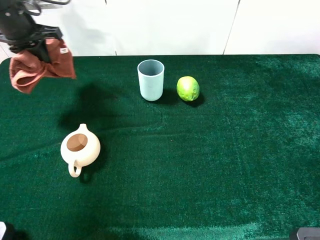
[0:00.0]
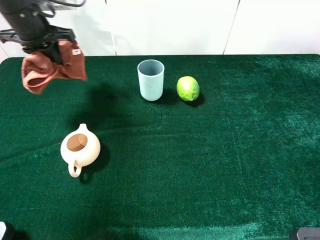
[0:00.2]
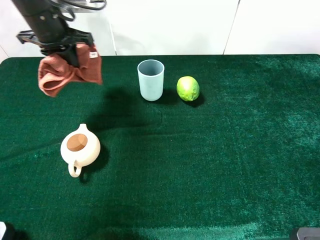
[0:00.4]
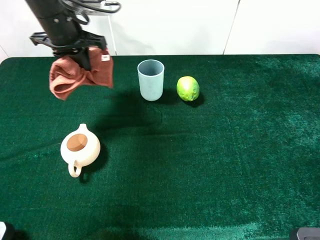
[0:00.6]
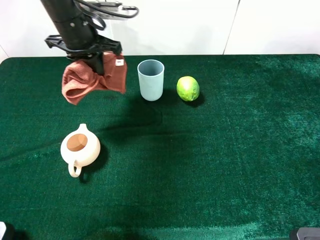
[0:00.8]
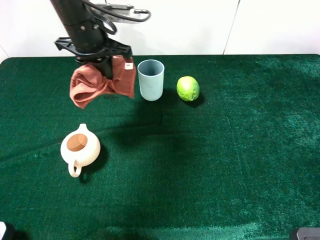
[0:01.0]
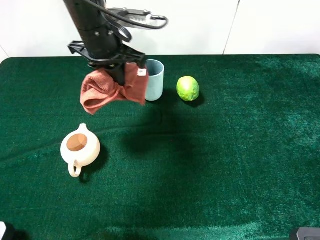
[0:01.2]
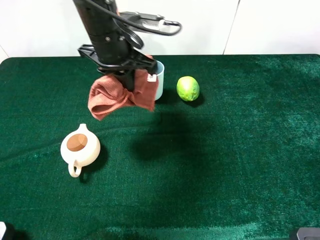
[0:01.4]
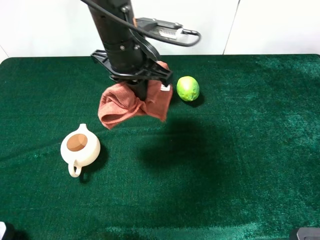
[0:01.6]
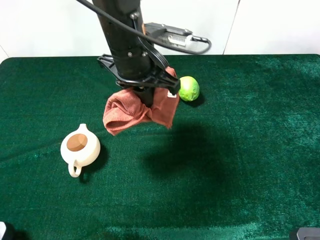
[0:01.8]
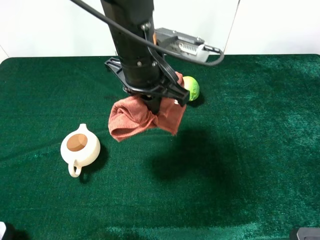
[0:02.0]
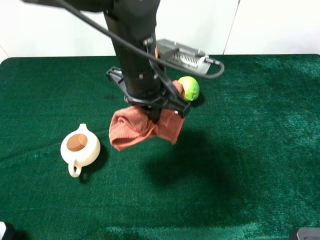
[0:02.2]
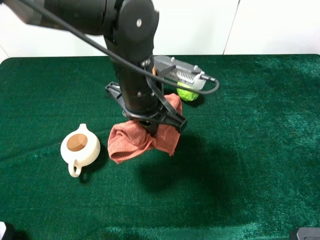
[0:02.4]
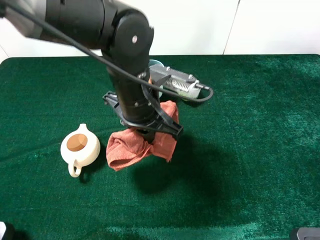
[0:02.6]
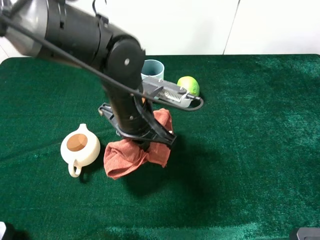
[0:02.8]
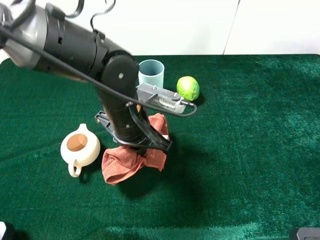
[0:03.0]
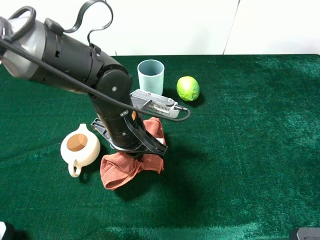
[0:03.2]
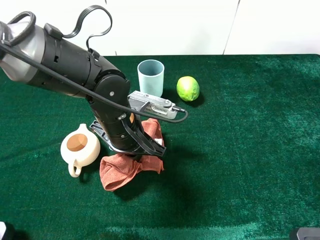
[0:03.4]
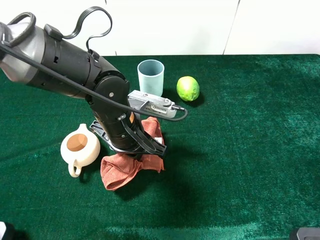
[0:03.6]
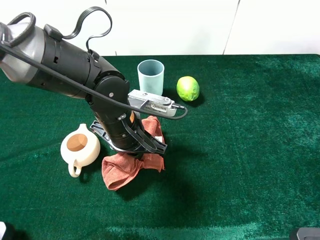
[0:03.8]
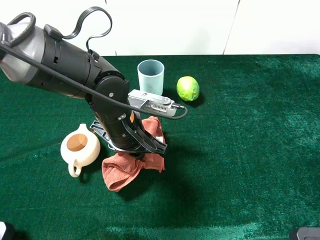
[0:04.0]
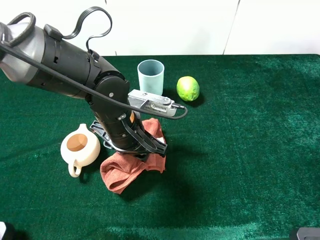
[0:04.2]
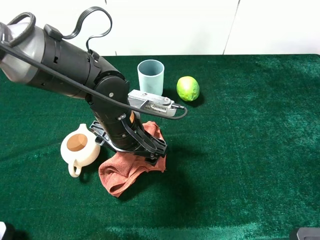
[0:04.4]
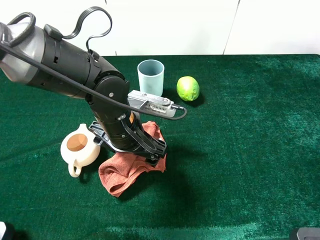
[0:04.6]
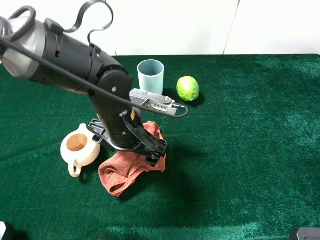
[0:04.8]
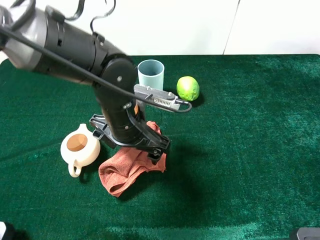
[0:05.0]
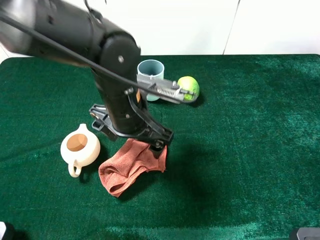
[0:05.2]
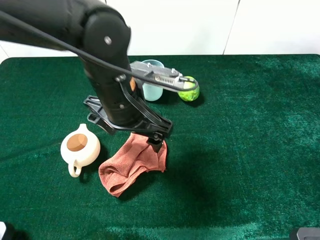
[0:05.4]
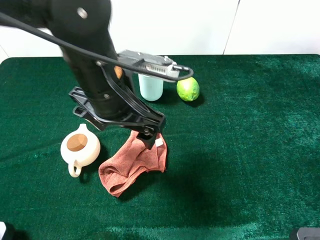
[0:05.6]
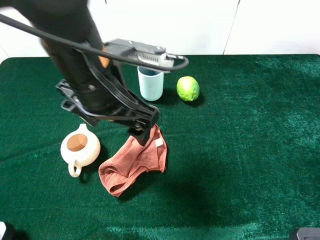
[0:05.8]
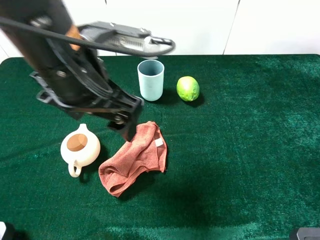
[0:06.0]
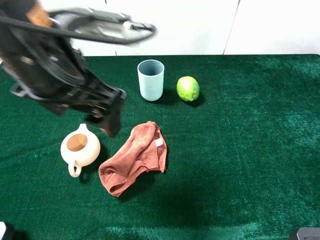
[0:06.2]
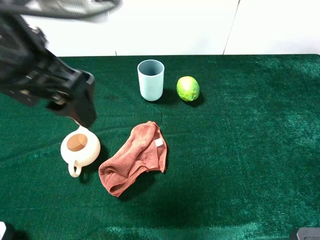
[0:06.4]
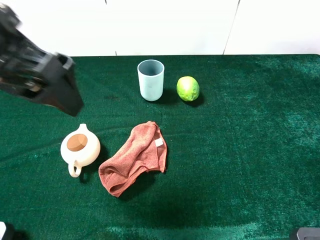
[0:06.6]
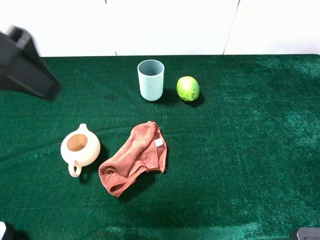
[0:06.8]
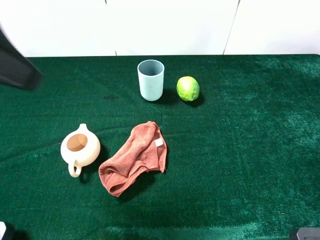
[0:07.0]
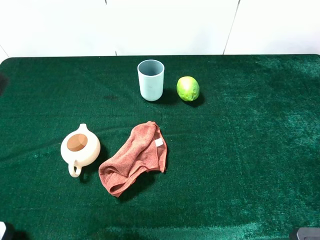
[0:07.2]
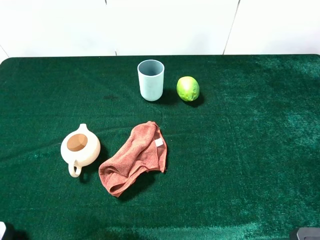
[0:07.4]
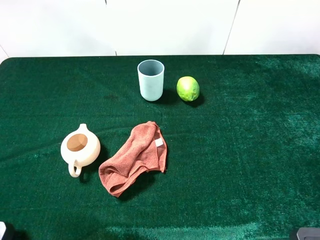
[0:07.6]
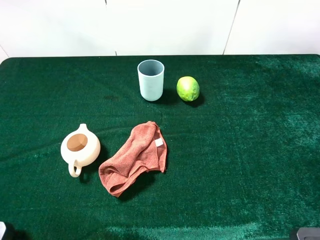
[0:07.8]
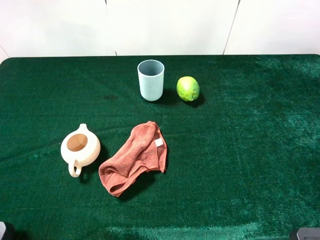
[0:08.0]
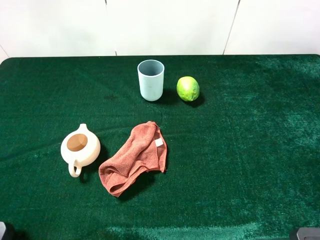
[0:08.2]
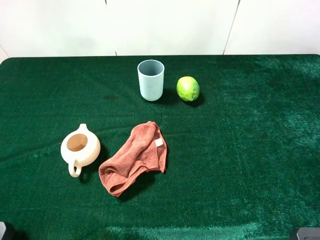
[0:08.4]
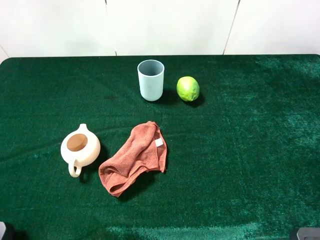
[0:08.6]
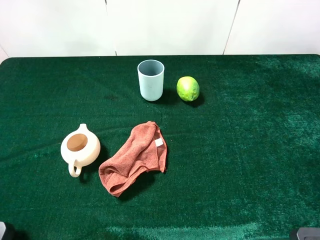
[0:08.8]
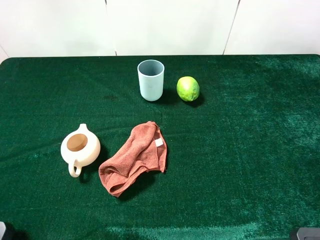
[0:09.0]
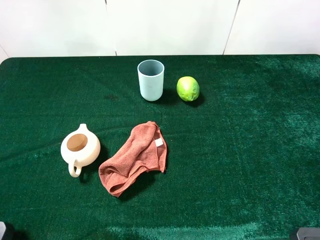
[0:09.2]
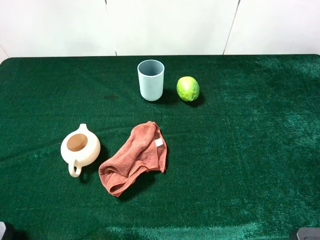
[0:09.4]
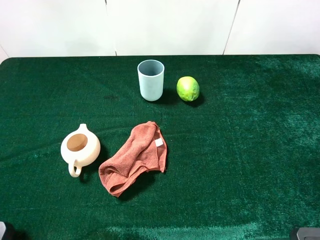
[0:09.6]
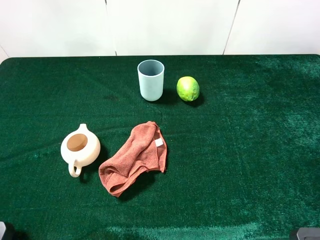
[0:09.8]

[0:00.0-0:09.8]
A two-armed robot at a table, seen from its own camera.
Task of the whole recording: the gripper move the object.
Step, 0:00.0 to 0:05.4: Place the brown towel on the table with the left gripper.
0:00.0 to 0:01.4: The left gripper goes about 20 cm to the right.
0:01.4 to 0:02.8: The left gripper goes roughly 10 cm backward and downward.
0:02.8 to 0:04.2: The left gripper opens up.
0:04.2 to 0:05.6: The left gripper moves upward, approximately 10 cm, and opens its fingers.
0:05.6 to 0:07.0: The left gripper is displaced upward, to the left and backward by some 20 cm.
0:07.0 to 0:08.4: The left gripper travels backward, to the left and downward by some 20 cm.

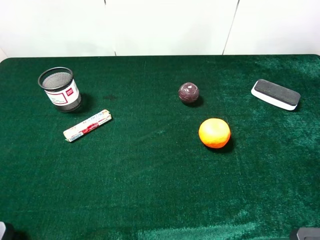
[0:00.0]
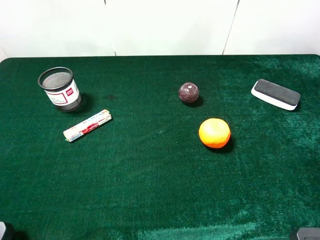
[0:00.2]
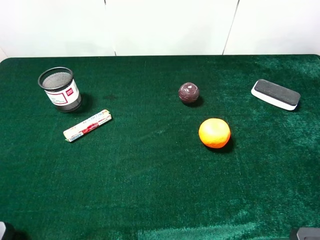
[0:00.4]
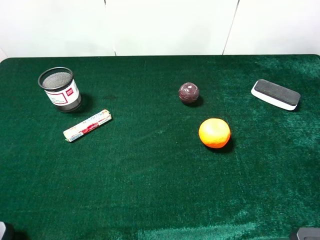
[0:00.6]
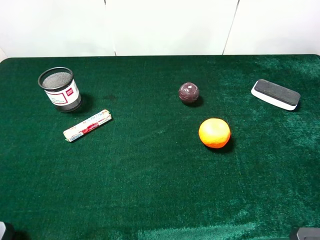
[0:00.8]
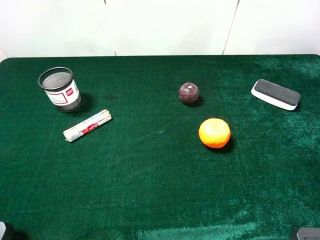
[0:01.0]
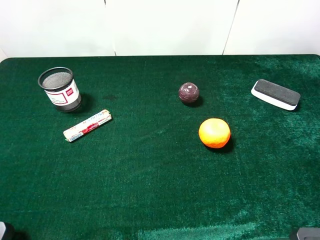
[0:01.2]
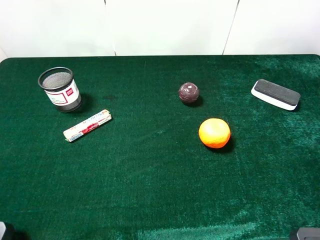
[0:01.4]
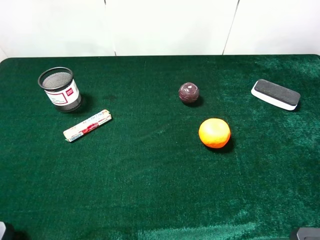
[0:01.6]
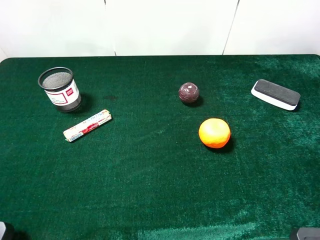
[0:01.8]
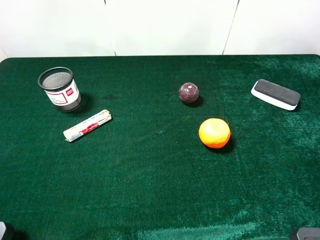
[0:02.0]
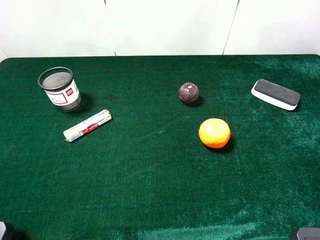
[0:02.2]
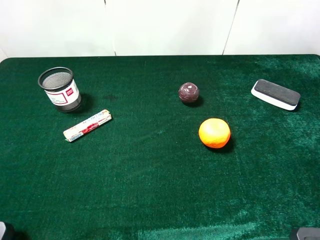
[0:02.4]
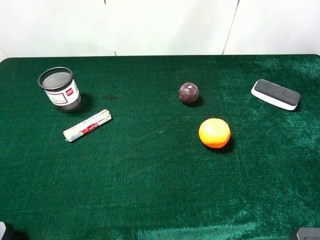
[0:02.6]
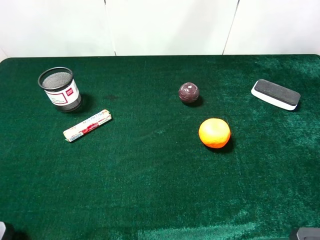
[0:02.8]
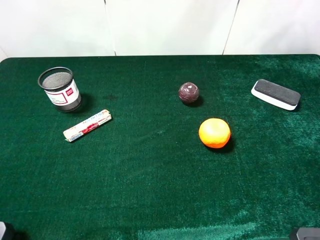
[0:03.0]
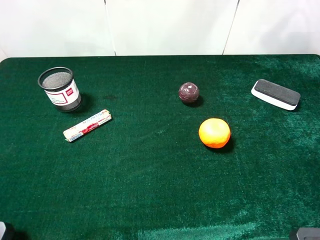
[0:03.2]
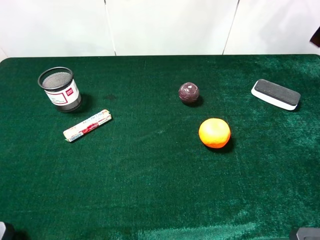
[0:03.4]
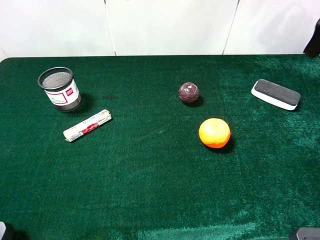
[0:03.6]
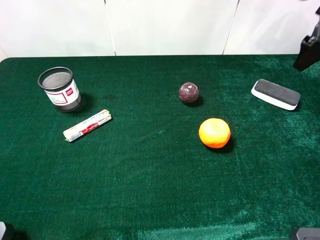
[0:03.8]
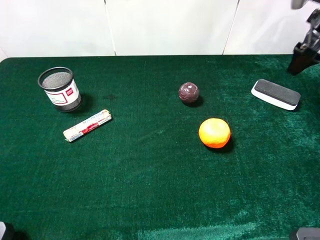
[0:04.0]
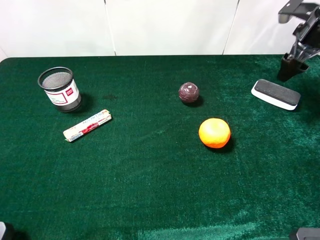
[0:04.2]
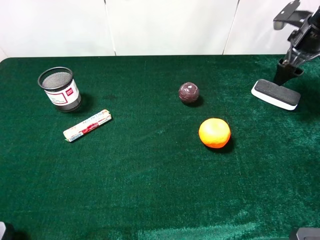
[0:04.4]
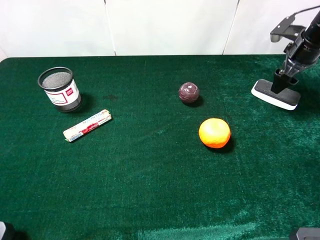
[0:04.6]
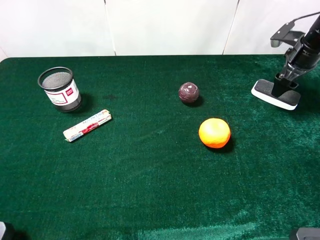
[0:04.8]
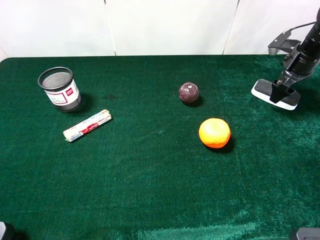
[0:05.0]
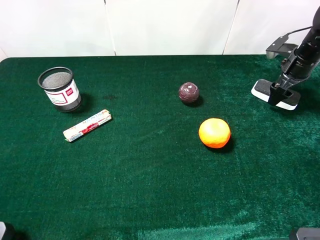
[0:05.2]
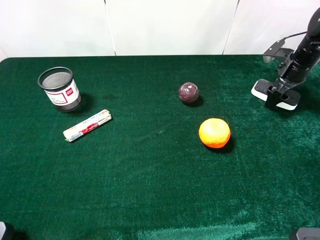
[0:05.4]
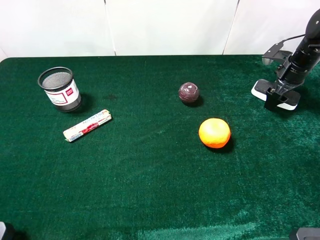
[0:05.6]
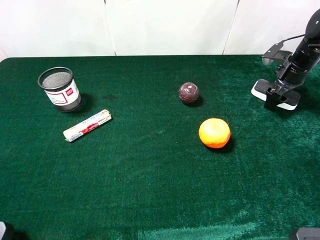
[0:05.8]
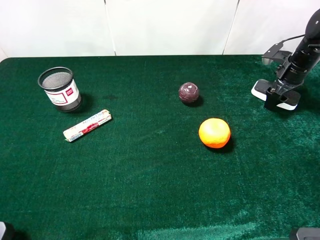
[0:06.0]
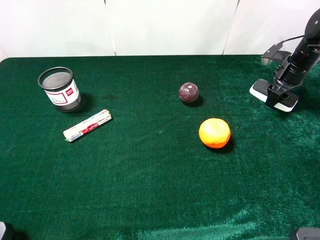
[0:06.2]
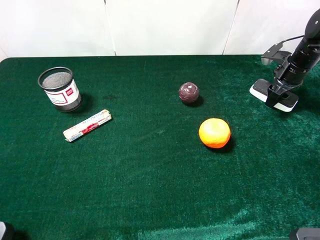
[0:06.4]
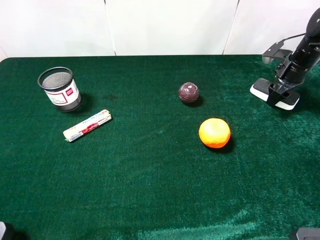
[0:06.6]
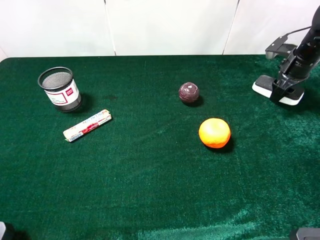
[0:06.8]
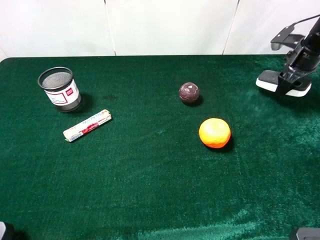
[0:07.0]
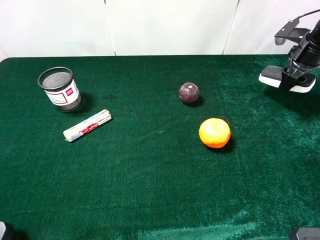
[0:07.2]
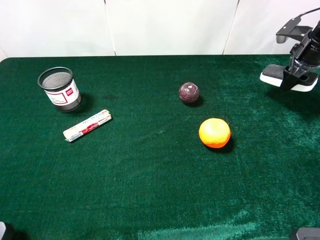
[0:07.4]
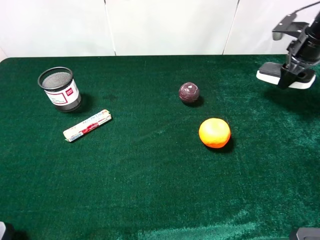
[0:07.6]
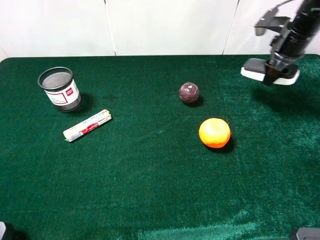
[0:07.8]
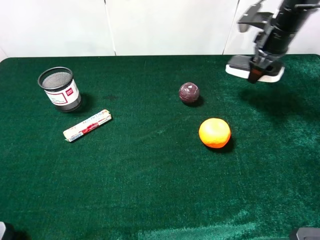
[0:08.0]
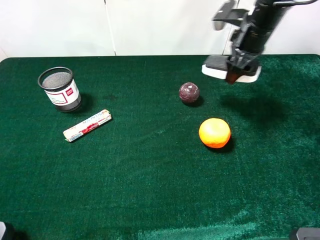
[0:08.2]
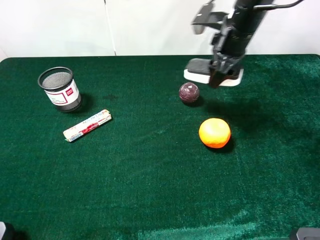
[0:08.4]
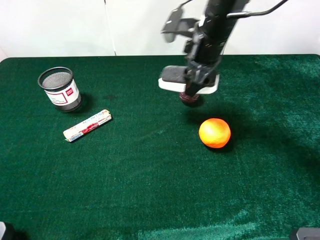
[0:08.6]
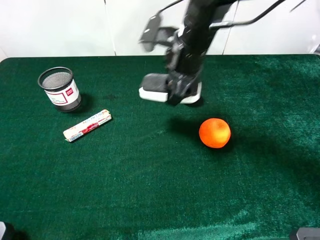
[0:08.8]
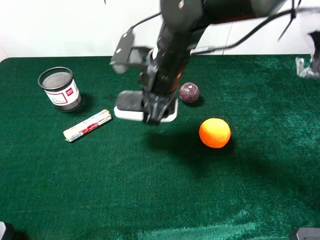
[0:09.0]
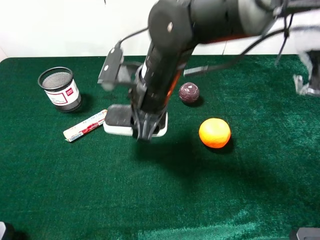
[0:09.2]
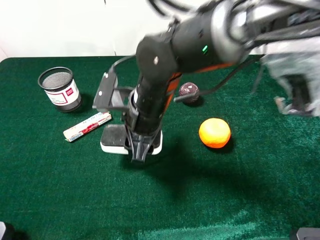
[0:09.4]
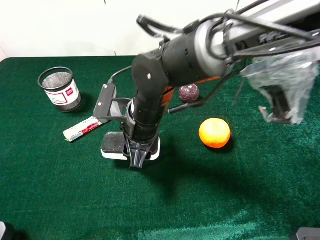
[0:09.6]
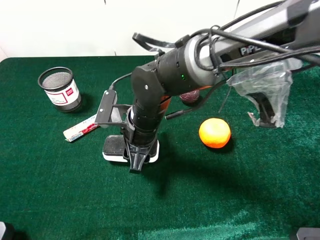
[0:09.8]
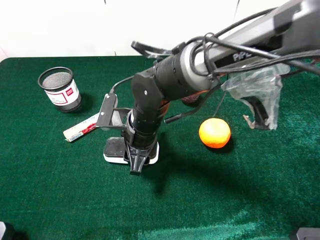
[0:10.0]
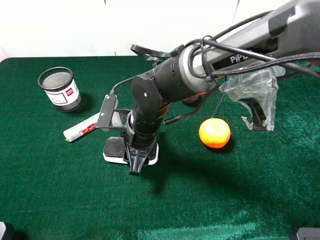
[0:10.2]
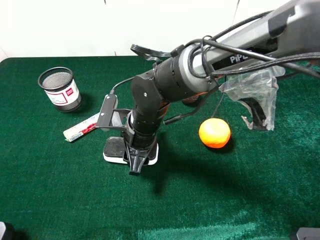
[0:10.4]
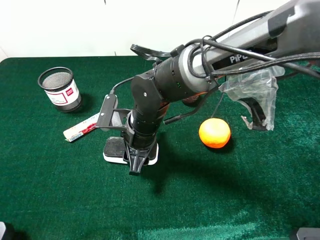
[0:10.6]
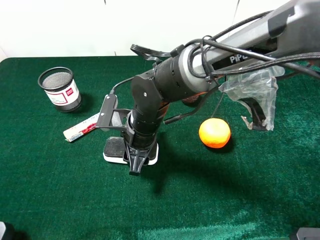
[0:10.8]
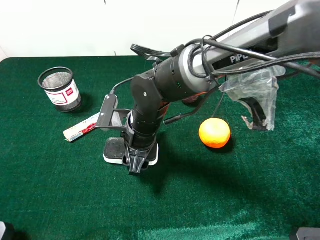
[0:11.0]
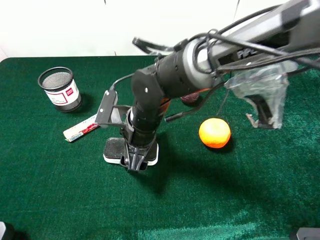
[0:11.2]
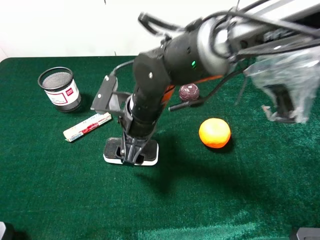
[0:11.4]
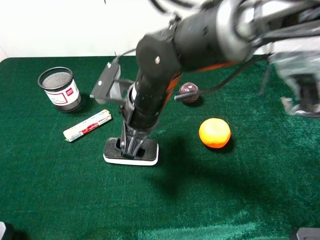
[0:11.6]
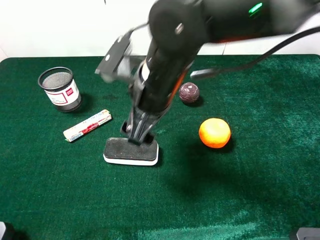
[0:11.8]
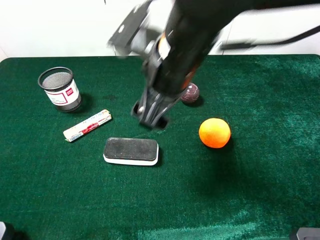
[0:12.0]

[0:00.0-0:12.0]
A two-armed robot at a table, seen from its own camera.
Task of the whole recording: the gripper move the object.
Step, 0:00.0 to 0:06.4: Grasp the white blackboard erasure with the right gripper.
Step, 0:06.6 to 0:11.2: Place the white blackboard erasure on the table with the right gripper.
0:00.0 to 0:01.6: Both grippers stay put.
0:03.0 to 0:04.4: The right gripper travels forward and downward by about 25 cm.
0:04.4 to 0:06.0: The right gripper moves downward, some 10 cm.
0:06.0 to 0:07.6: The right gripper heads upward, covering approximately 10 cm, and closes.
0:07.6 to 0:09.0: The right gripper goes roughly 35 cm to the left and backward.
0:09.0 to 0:10.4: The right gripper is displaced downward by roughly 10 cm.
0:10.4 to 0:12.0: The right gripper shifts roughly 20 cm upward, and opens up.
